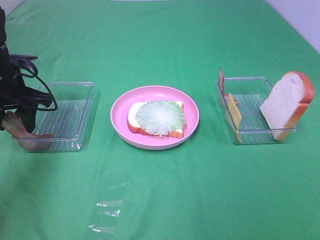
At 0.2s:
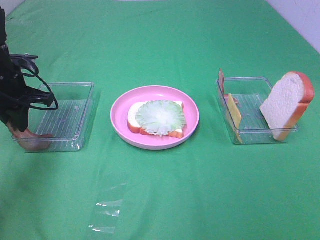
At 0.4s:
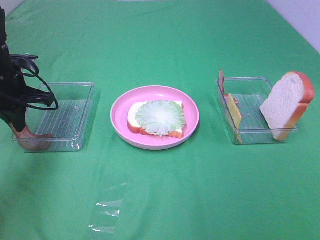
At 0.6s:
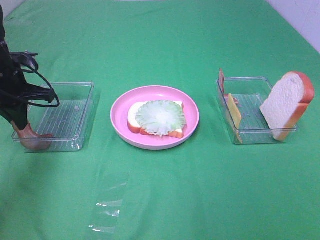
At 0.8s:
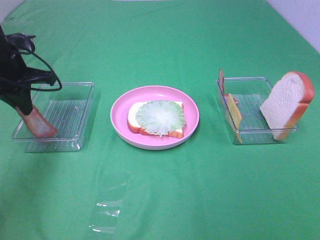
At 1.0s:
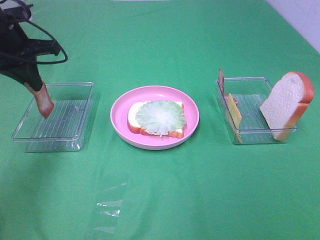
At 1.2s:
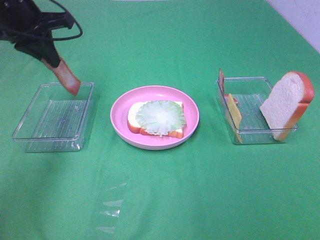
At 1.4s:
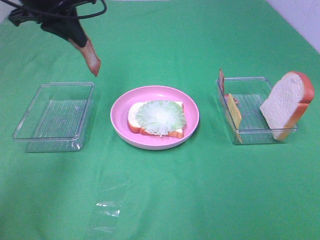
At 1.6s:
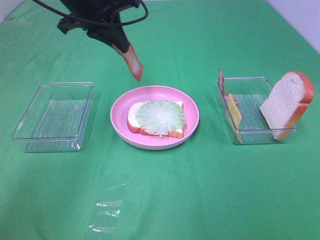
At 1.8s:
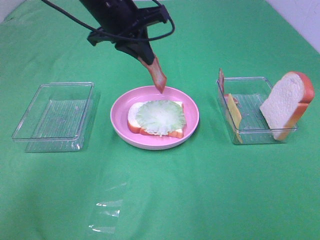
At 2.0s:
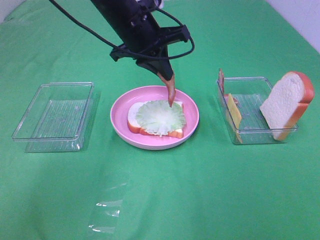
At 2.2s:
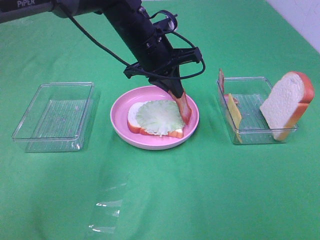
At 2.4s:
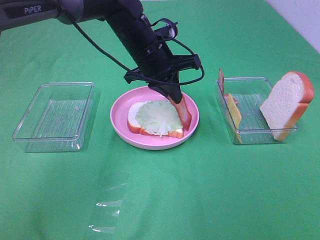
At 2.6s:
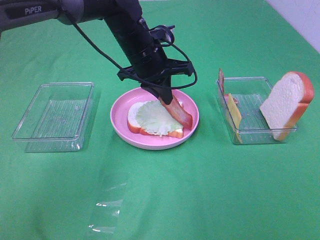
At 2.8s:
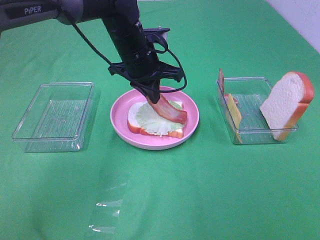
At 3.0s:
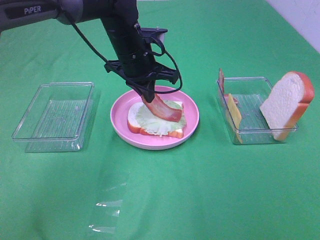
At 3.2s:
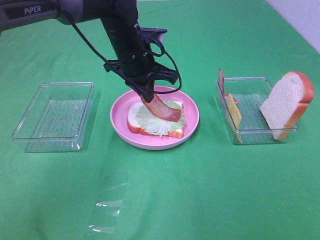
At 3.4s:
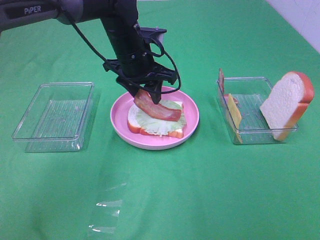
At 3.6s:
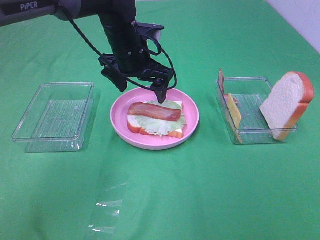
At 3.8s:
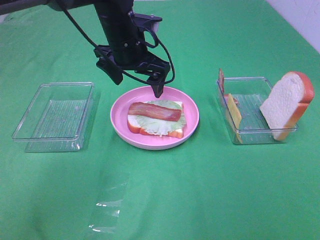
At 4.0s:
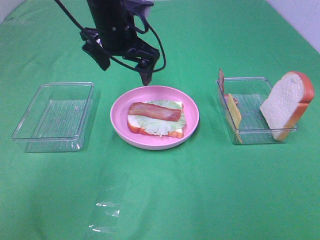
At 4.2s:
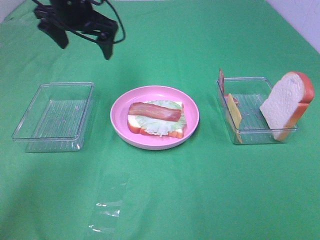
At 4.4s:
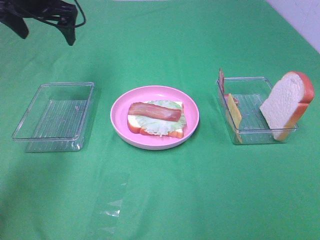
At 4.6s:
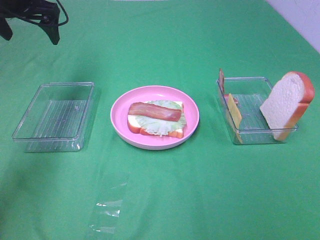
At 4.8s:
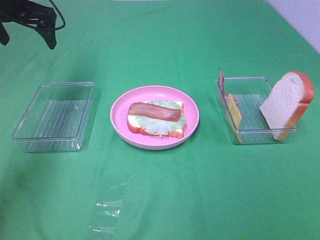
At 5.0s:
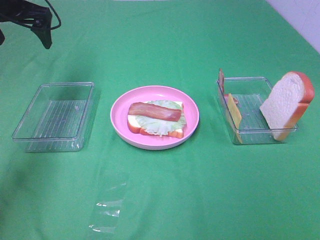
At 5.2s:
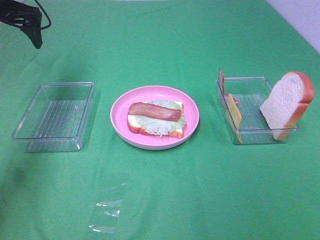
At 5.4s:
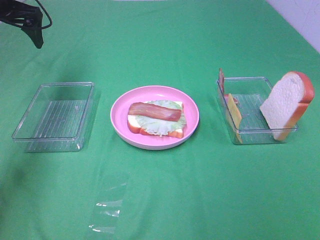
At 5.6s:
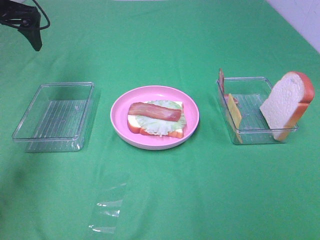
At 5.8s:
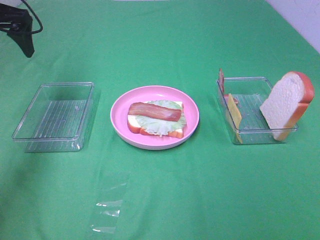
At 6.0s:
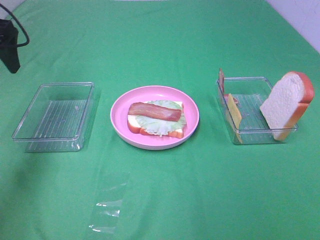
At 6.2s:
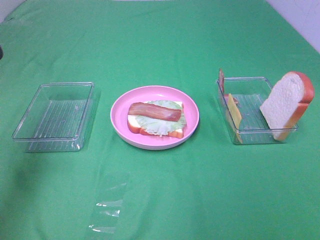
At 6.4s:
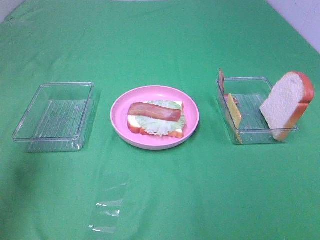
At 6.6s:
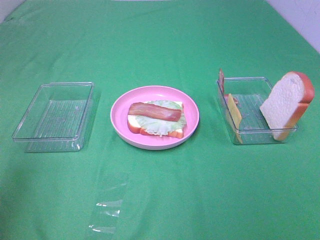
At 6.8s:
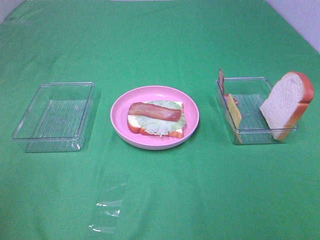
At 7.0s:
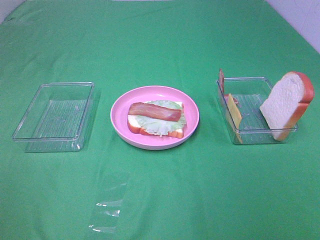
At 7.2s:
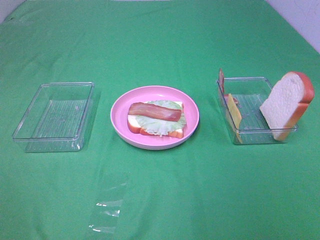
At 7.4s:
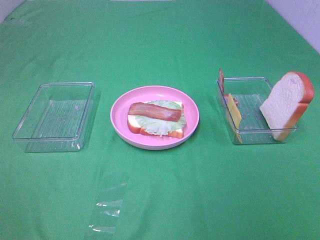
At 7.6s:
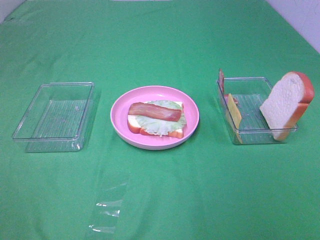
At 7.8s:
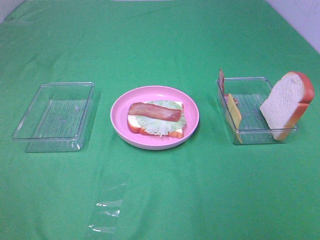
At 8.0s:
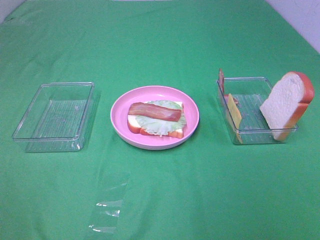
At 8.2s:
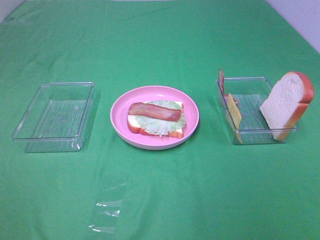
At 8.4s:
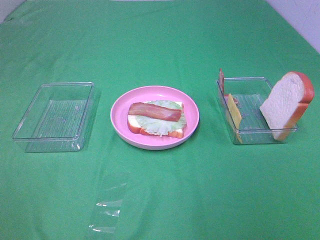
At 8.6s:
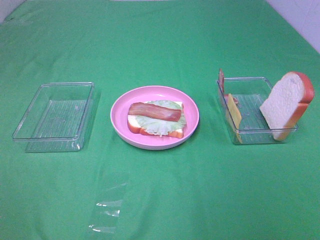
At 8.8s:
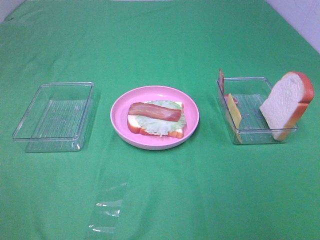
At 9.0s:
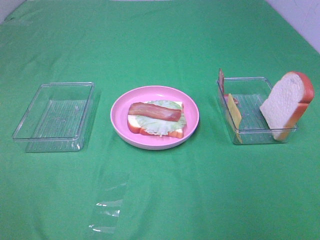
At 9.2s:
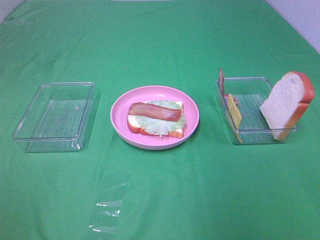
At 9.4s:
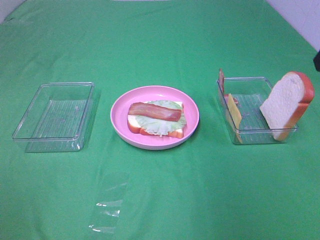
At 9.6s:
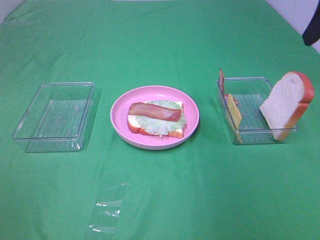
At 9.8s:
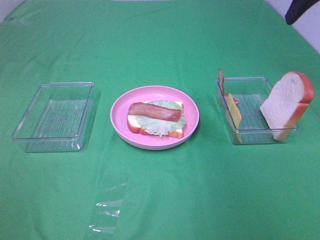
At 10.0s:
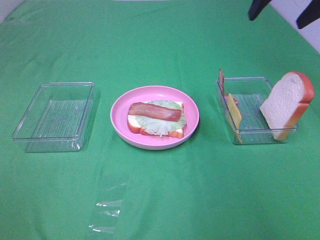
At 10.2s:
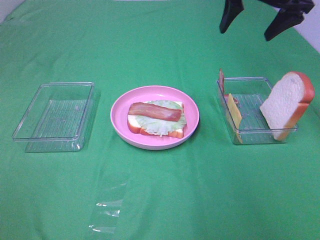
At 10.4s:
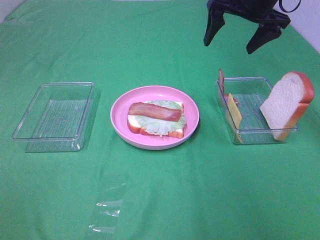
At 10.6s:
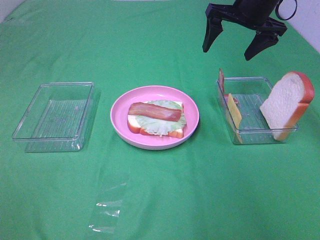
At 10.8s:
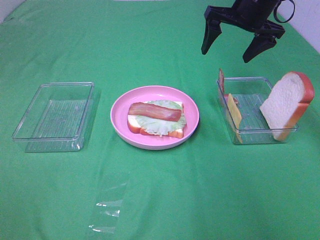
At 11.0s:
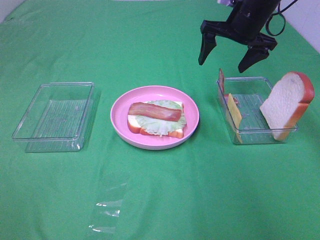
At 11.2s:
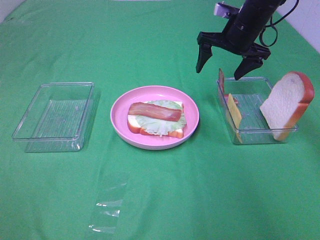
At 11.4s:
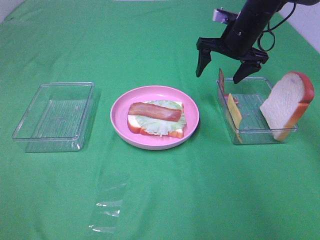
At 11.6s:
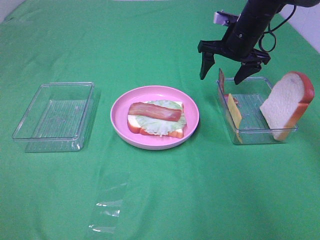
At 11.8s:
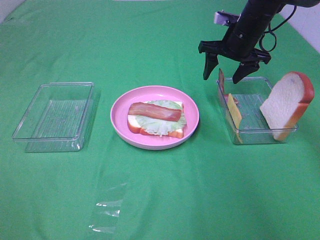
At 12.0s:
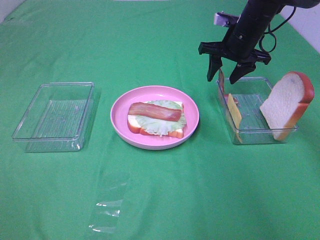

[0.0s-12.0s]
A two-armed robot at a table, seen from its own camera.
Task of the whole recording: Make sandwiches.
Step, 0.6s to 3.6s: Left hand:place bacon on lettuce slice.
0.0s to 1.6s: The left gripper travels to the right and upward by about 20 cm, and closes up.
1.6s to 3.0s: The left gripper moves downward and to the right, some 15 cm.
3.0s to 4.4s: The left gripper goes about 20 cm to the left and upward, and opens.
4.4s to 6.0s: The left gripper is displaced backward and to the left by about 10 cm.
6.0s to 7.6s: The left gripper travels backward by approximately 40 cm.
9.0s to 10.4s: The right gripper travels forward by roughly 35 cm.
10.4s to 12.0s: The right gripper goes about 10 cm downward, and closes up.

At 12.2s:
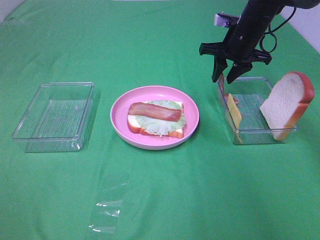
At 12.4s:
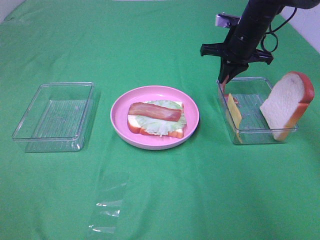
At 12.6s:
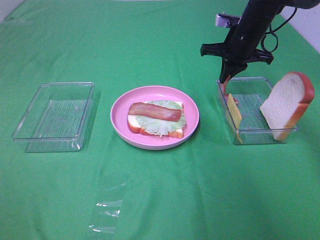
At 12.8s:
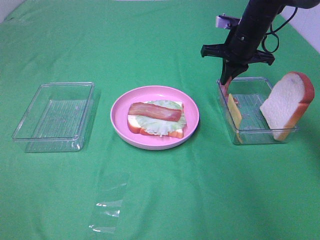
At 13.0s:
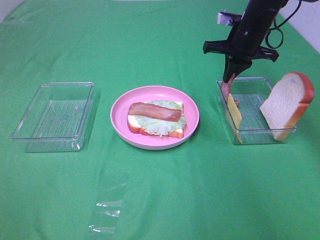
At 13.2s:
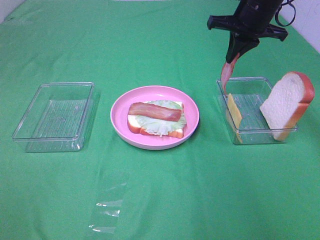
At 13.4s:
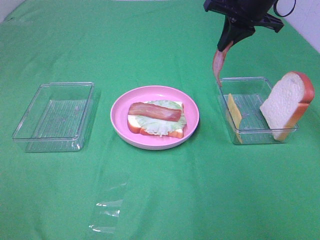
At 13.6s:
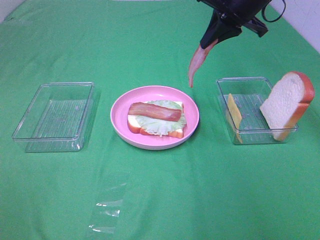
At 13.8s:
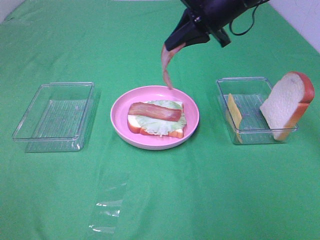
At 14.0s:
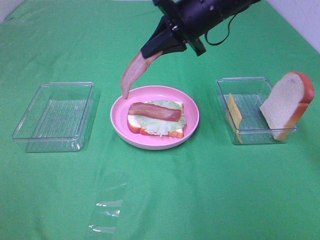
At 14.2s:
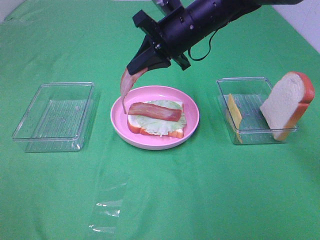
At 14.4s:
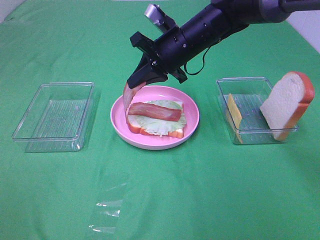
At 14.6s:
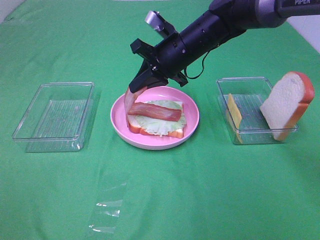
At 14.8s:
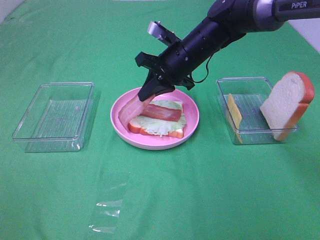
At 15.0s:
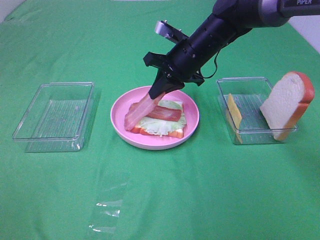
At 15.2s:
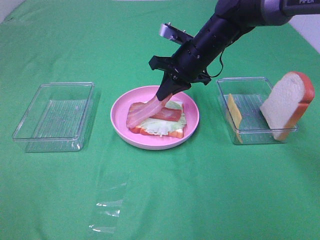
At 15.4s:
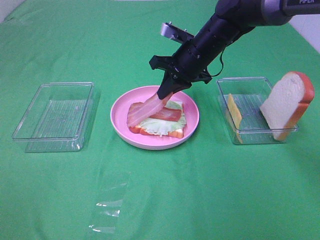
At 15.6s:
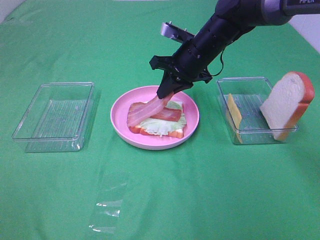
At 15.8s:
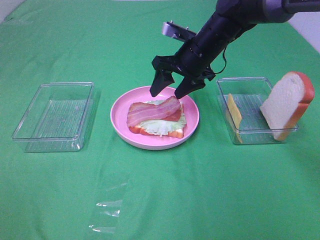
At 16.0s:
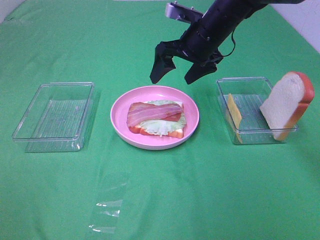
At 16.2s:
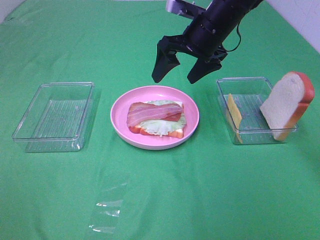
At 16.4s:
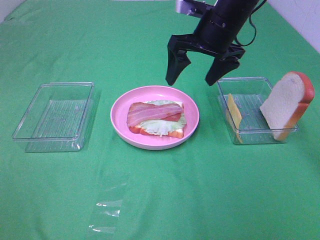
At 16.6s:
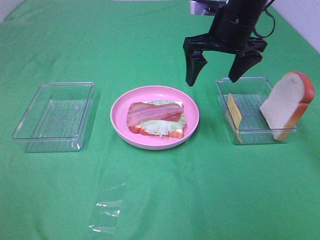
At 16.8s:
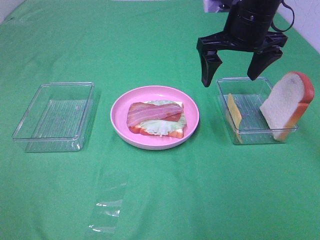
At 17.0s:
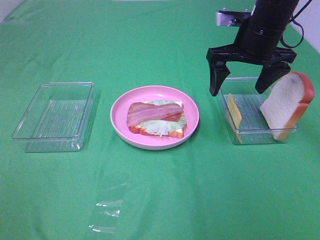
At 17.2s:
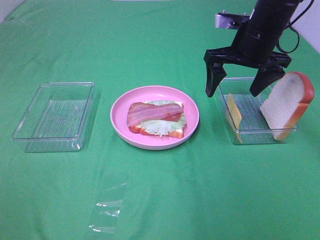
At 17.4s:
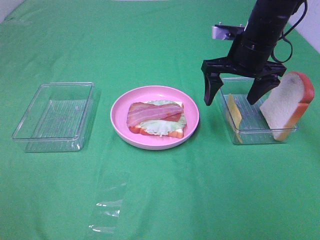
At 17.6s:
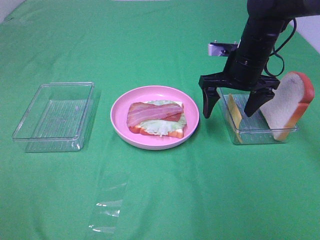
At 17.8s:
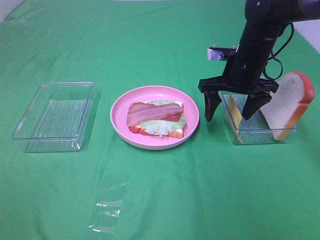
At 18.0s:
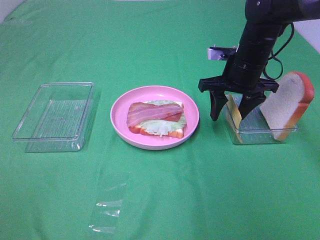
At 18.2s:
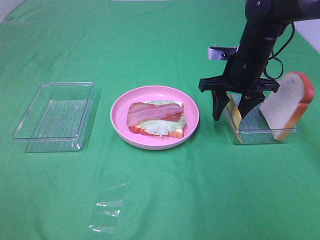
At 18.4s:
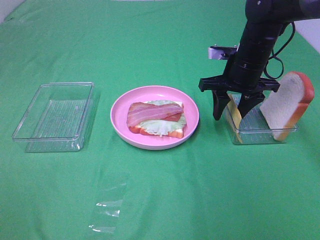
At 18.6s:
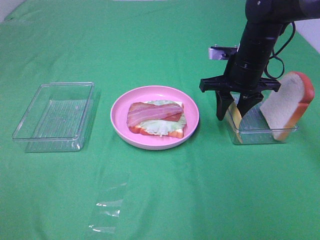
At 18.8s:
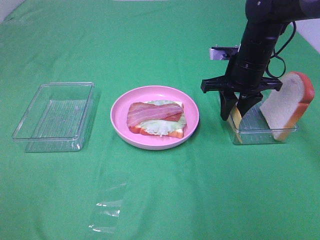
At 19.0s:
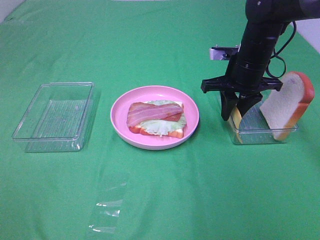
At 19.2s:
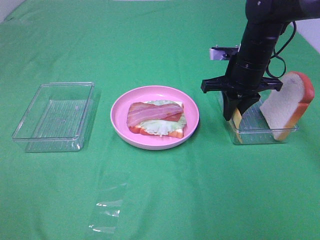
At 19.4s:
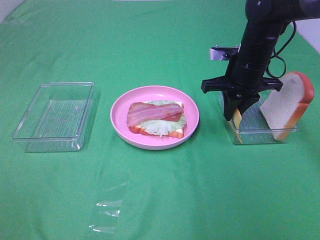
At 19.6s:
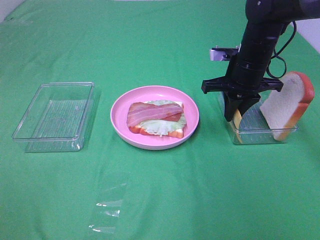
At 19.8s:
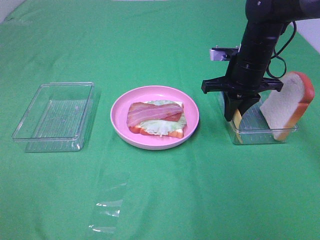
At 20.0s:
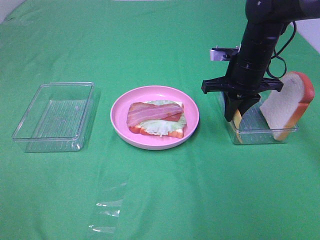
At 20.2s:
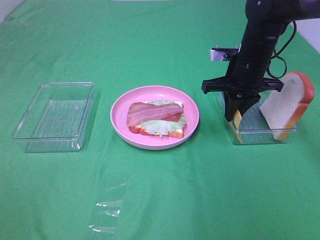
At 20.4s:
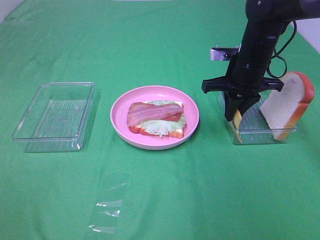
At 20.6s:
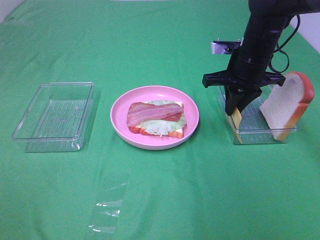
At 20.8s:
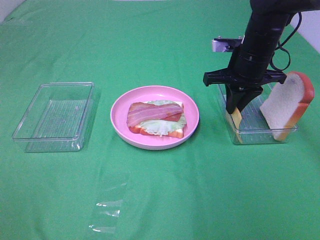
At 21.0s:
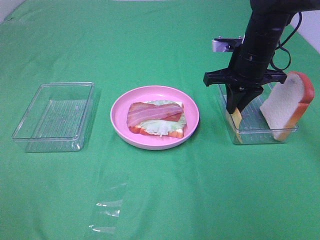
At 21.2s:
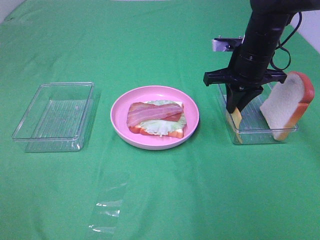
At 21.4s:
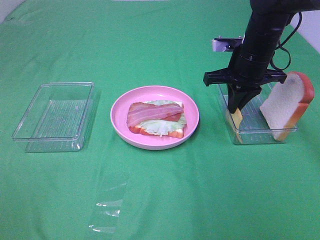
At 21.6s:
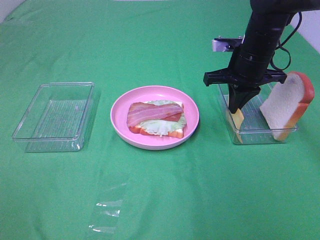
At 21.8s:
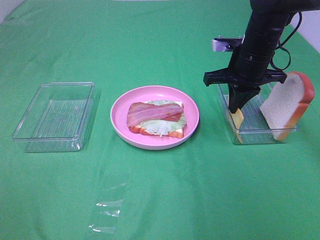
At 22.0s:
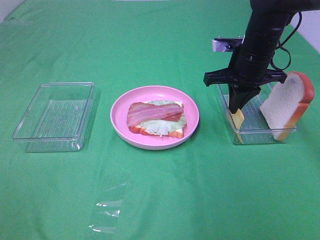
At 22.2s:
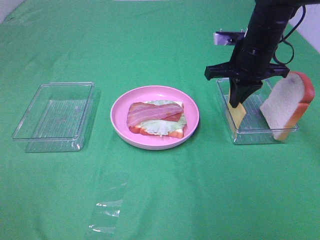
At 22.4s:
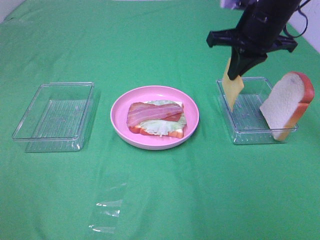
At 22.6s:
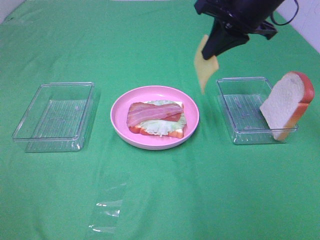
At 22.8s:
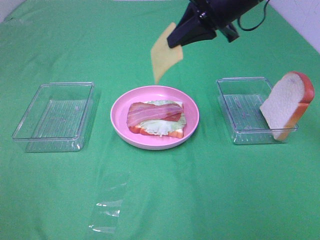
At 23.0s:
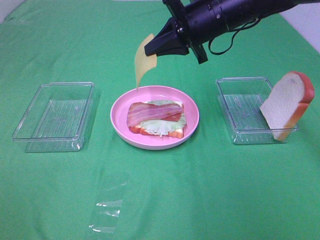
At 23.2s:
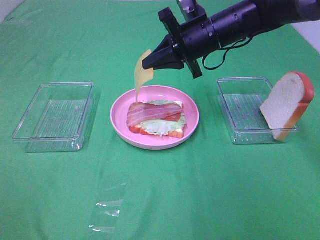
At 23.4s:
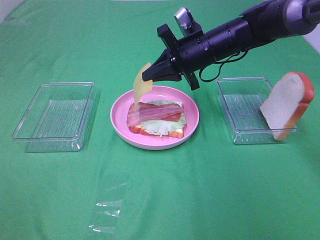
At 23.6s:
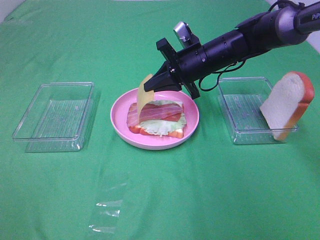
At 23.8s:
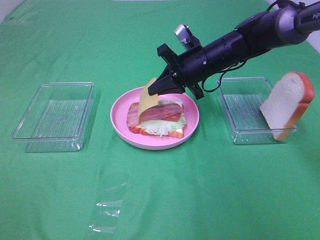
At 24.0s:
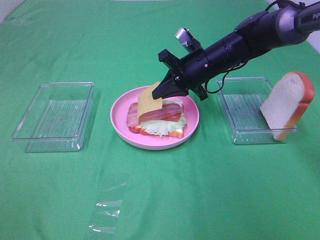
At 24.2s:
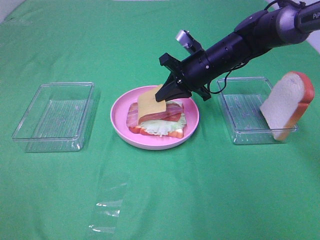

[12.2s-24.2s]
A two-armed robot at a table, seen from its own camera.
Task of the whole recording: Make sandwiches.
Step, 12.8s to 15.8s: Right hand:place bacon on bacon.
Step, 16.0s to 21.6s: Right hand:grab the cheese slice.
12.2s to 13.8s: The right gripper shifts roughly 15 cm upward, backward and to the left, and closes its fingers.
13.8s to 15.2s: The right gripper goes some 10 cm downward.
15.2s to 16.6s: The right gripper shifts approximately 10 cm upward, and opens its fingers.
16.6s to 18.2s: The right gripper shifts some 10 cm downward, and closes its fingers.
18.2s to 19.8s: The right gripper closes.
19.8s to 21.2s: The grippers stay close to where they were, moving slightly.
21.2s to 22.6s: The right gripper travels upward by some 10 cm.
22.6s to 24.2s: The right gripper is displaced downward by some 15 cm.
